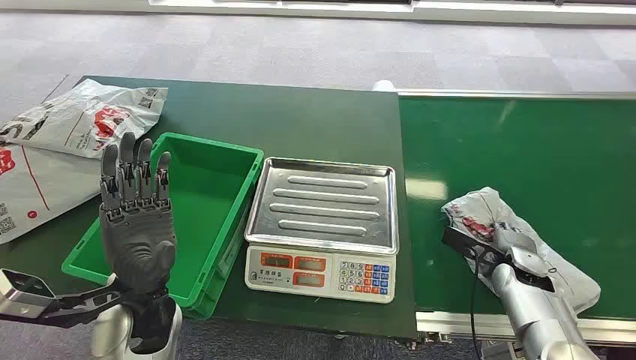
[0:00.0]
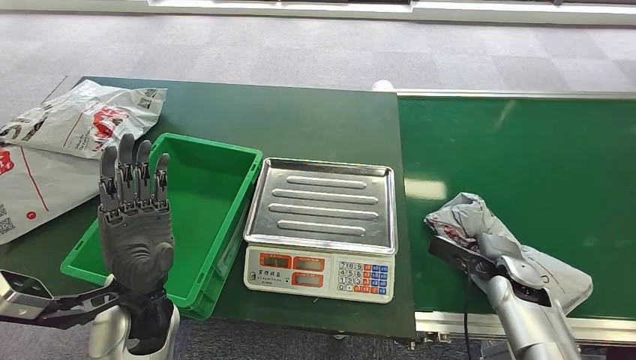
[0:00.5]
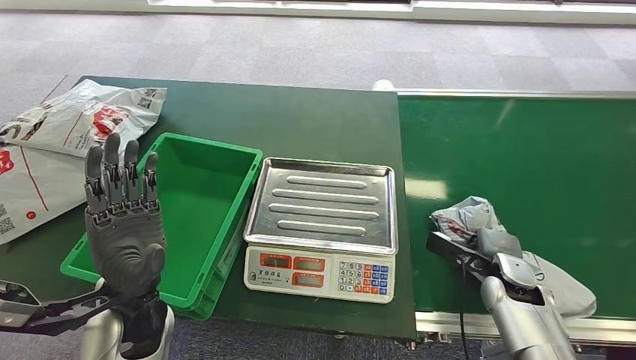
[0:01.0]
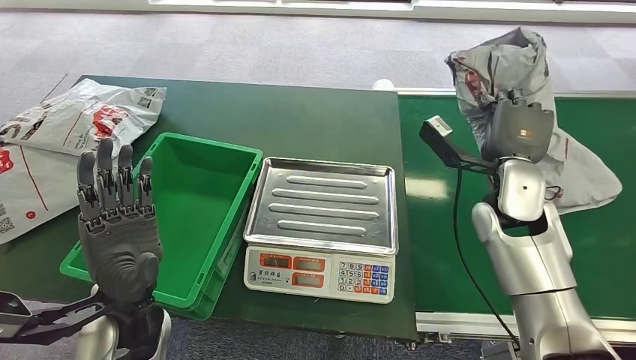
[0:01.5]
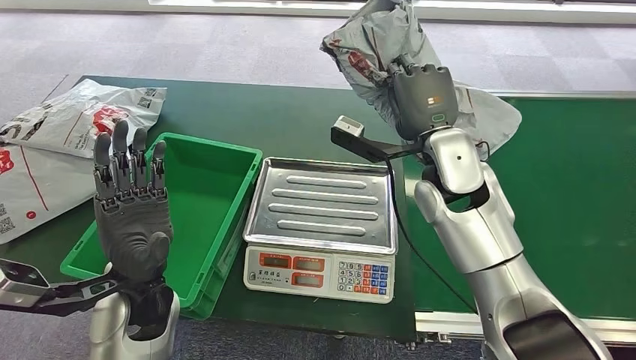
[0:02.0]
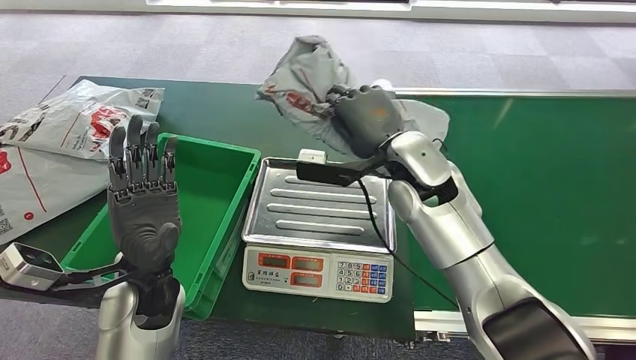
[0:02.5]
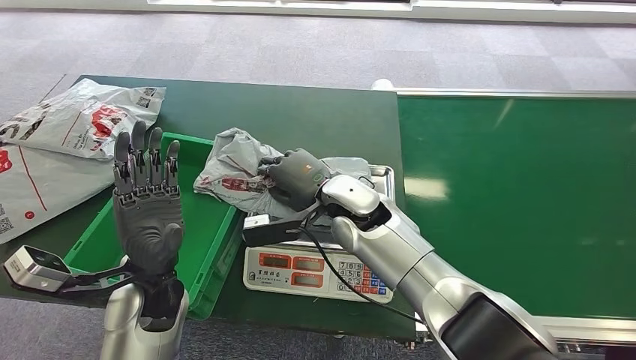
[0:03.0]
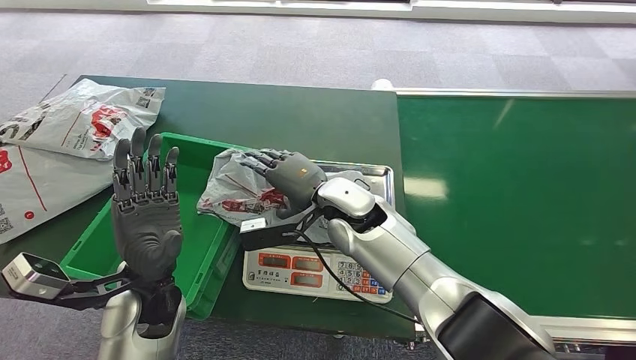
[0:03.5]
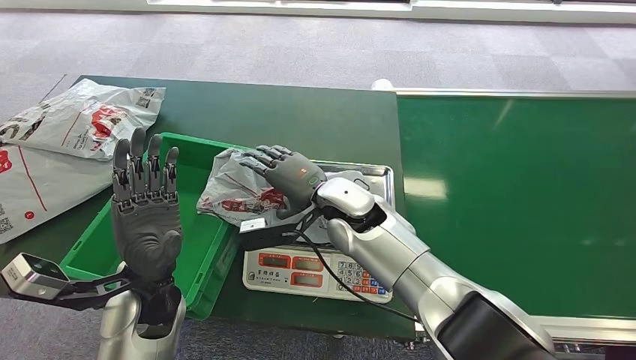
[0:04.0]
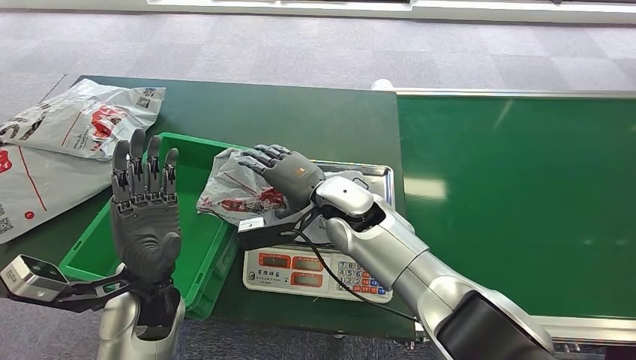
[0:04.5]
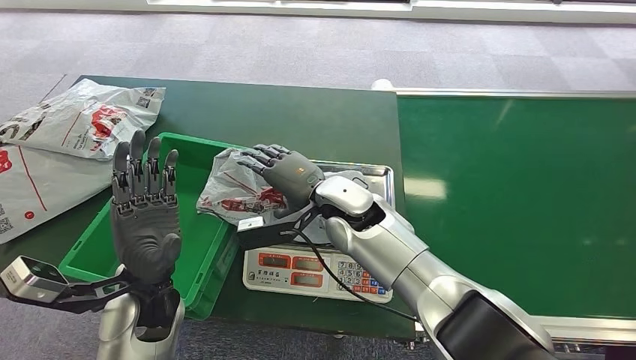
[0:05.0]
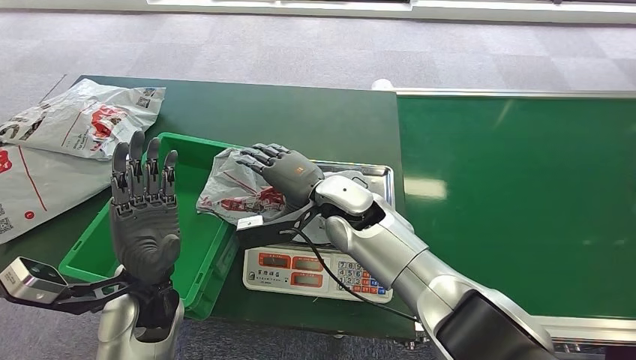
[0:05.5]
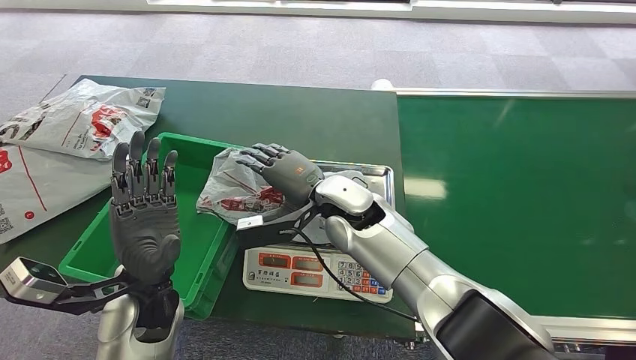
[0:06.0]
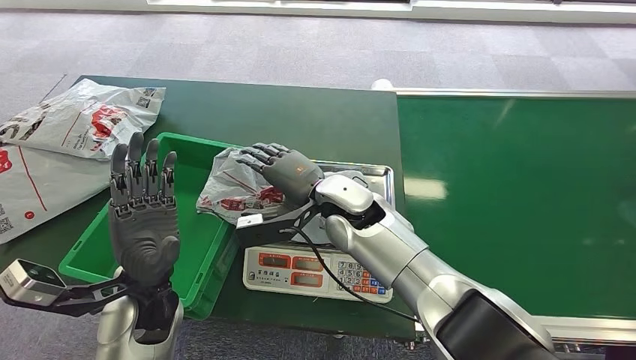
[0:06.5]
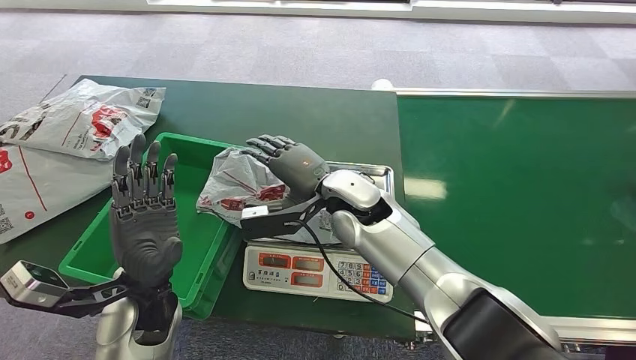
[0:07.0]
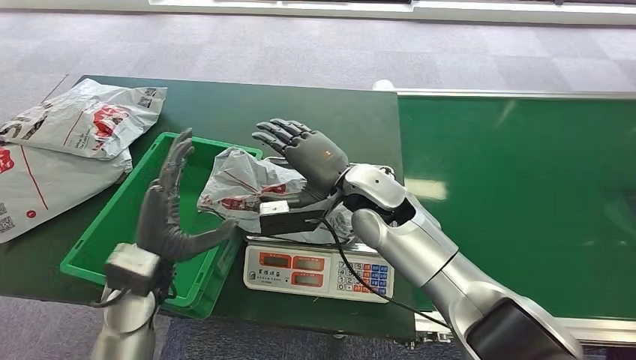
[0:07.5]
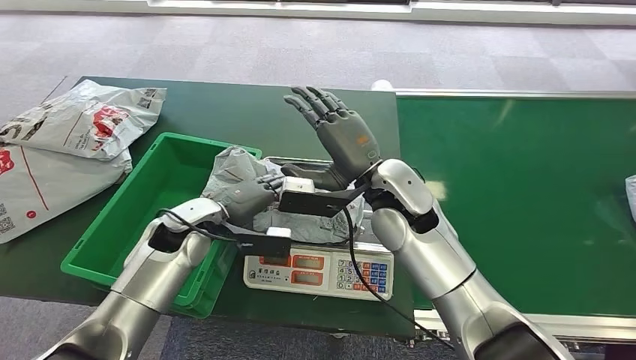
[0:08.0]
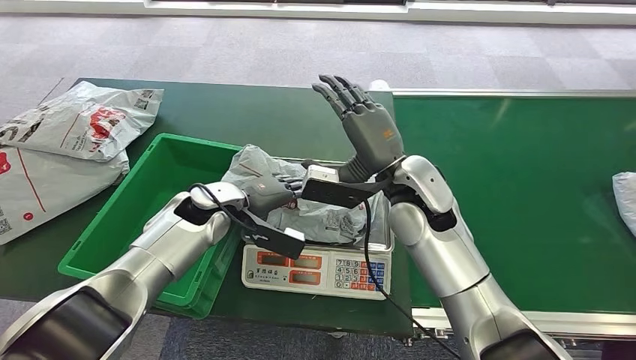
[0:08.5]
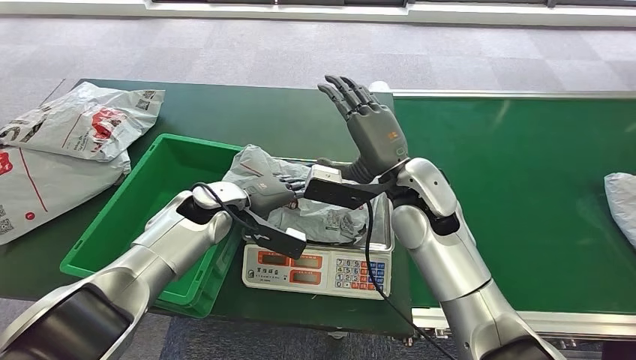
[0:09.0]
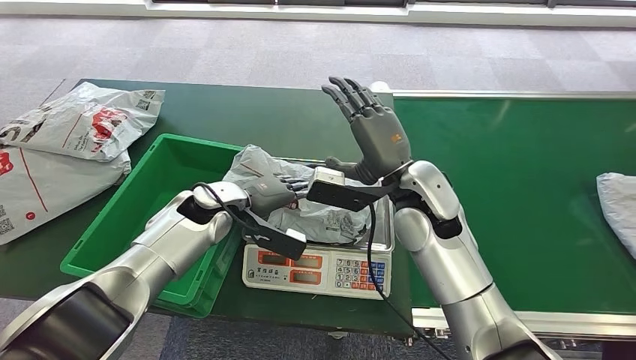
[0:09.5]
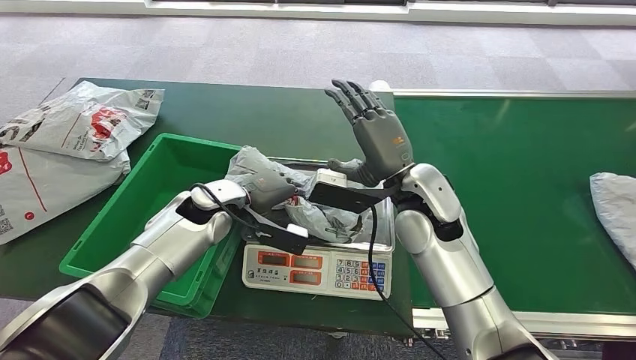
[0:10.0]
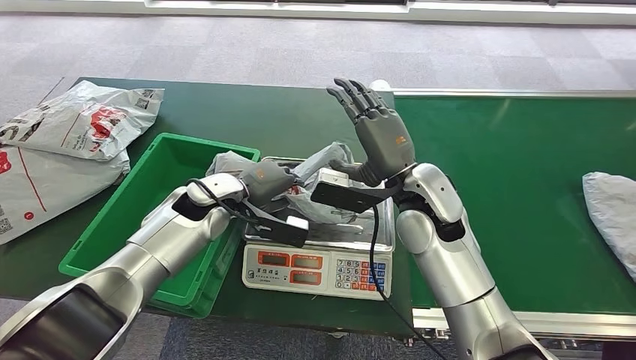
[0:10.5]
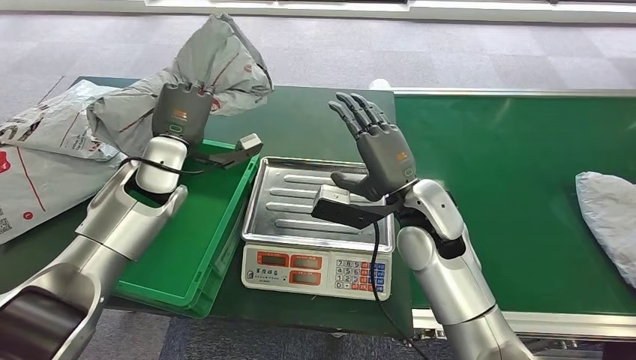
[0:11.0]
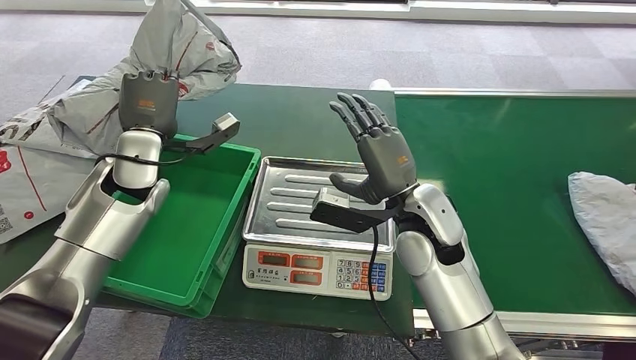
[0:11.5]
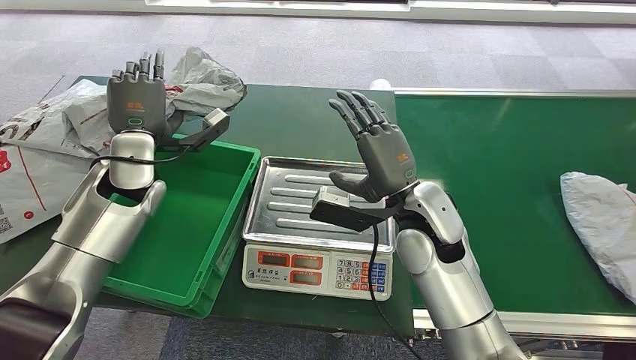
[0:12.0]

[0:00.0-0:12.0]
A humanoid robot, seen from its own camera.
Step, 0:00.0 to 0:01.5: Pick up the package from the conveyor belt.
Step, 0:02.0 to 0:04.5: Place the package onto the inbound machine.
Step, 0:05.0 to 0:11.0: Pick up the package from the inbound machine.
Step, 0:11.5 to 0:12.0: Place the package into the parcel locker.
0:04.0 to 0:06.0: Neither hand changes place.

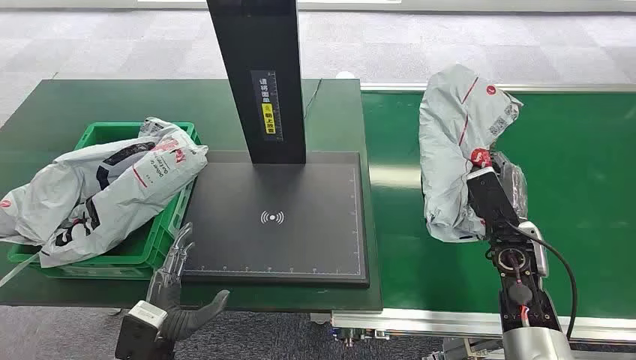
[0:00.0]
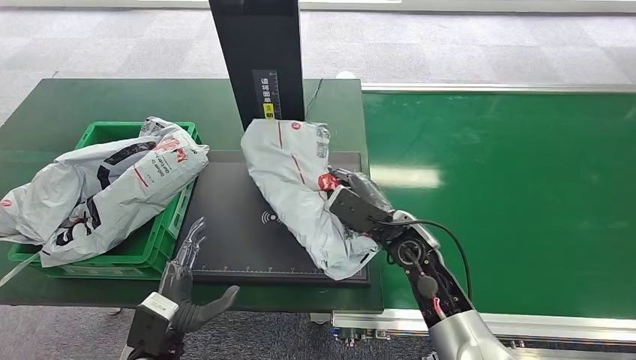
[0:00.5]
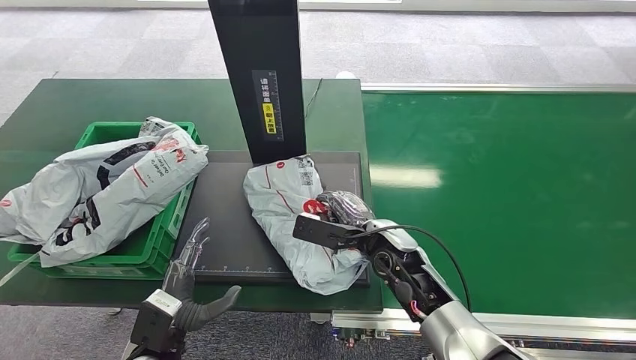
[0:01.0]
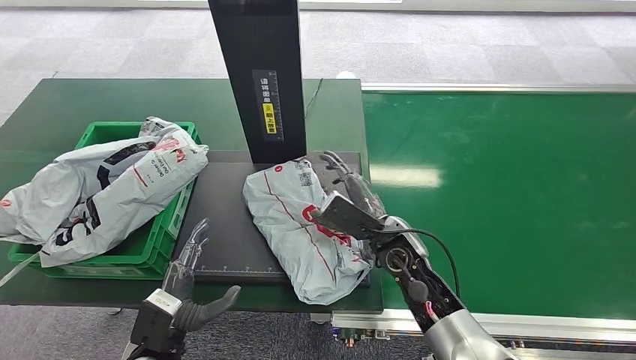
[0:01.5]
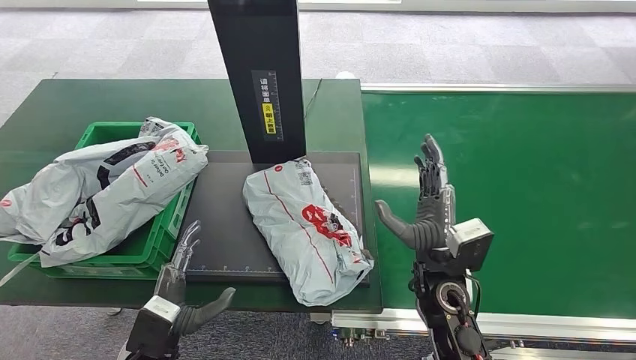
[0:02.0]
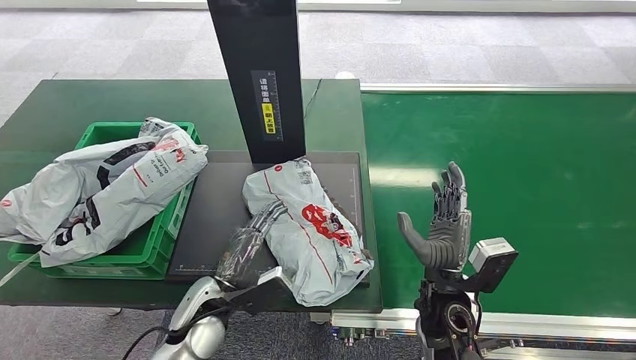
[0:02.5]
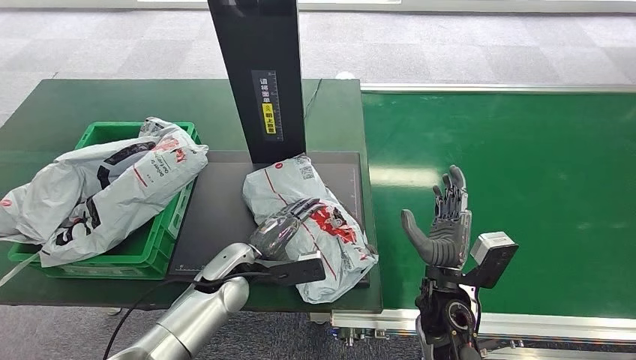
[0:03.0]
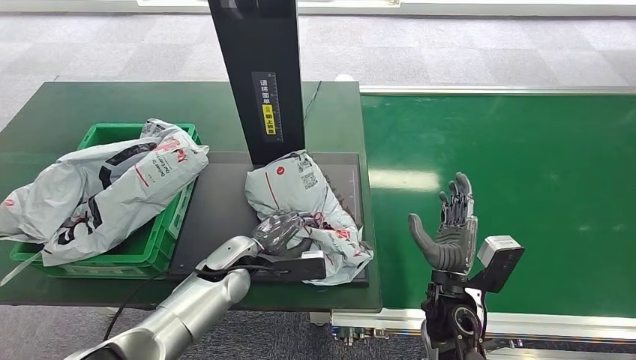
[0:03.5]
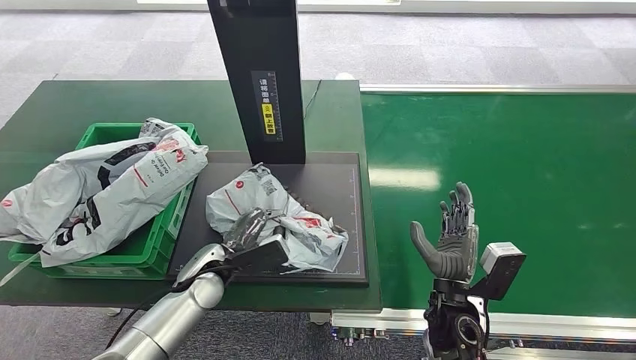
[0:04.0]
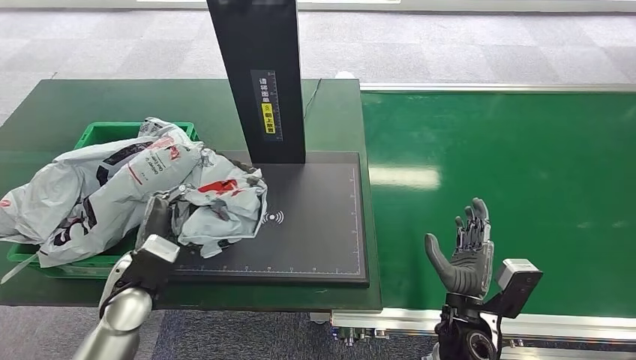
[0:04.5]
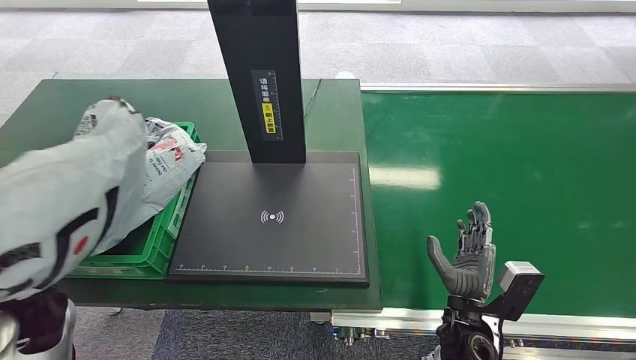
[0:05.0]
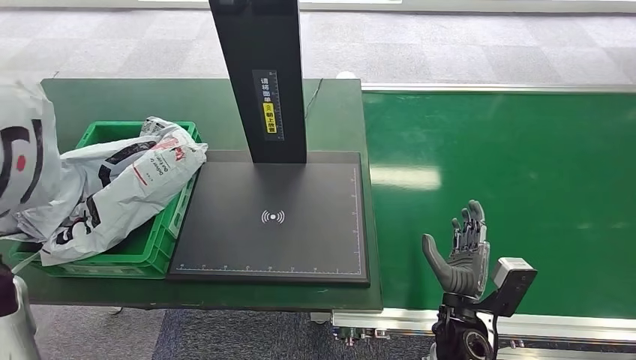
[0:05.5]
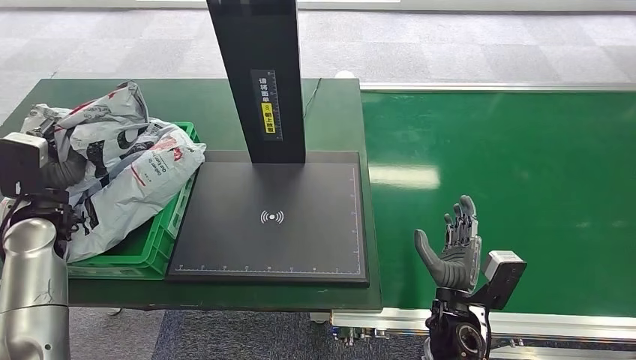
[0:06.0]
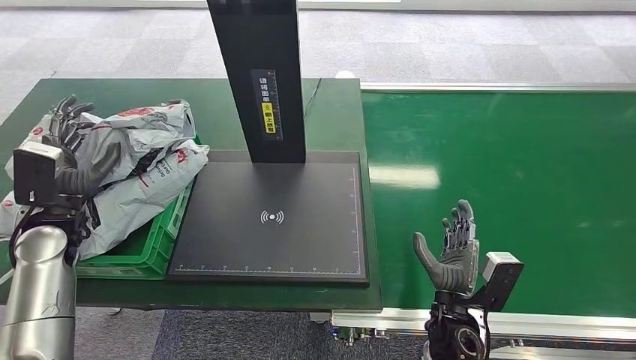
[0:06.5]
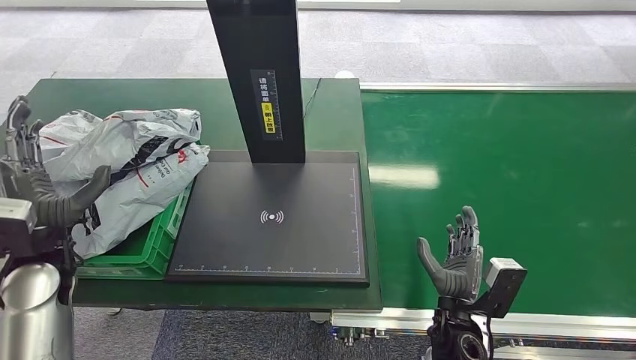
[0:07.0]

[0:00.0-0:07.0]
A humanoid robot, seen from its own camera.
0:05.0 to 0:07.0: The left hand moves forward, approximately 5 cm.
